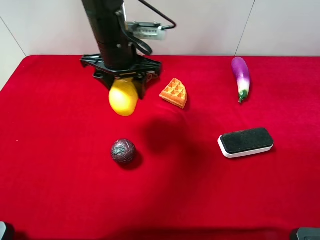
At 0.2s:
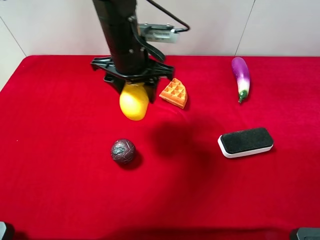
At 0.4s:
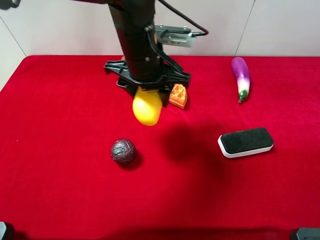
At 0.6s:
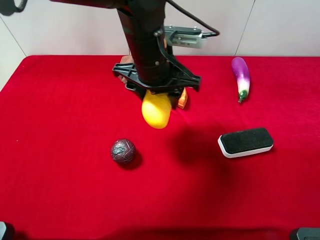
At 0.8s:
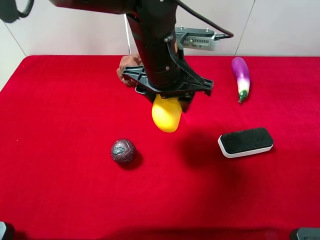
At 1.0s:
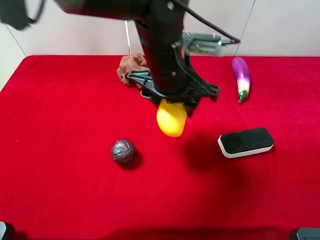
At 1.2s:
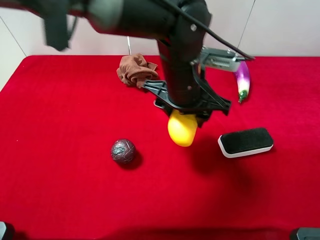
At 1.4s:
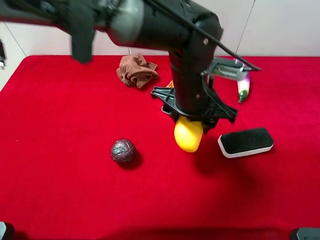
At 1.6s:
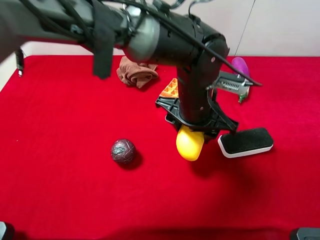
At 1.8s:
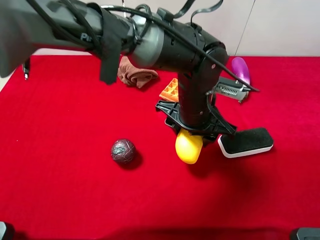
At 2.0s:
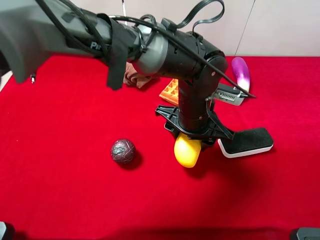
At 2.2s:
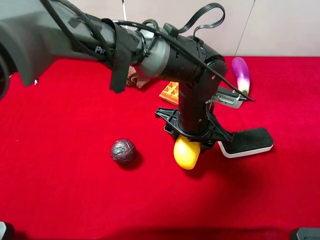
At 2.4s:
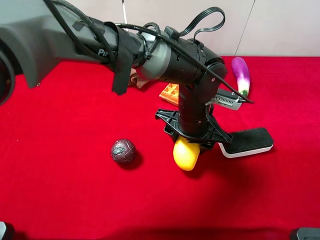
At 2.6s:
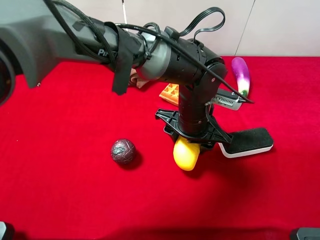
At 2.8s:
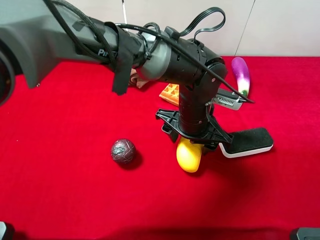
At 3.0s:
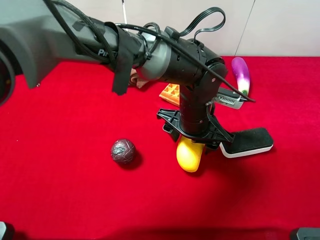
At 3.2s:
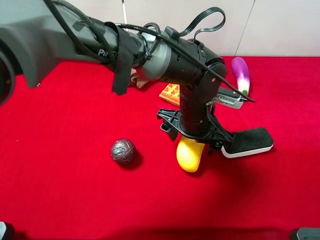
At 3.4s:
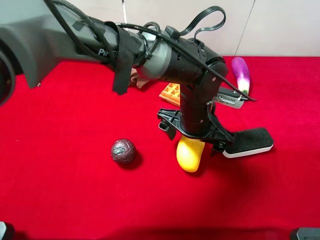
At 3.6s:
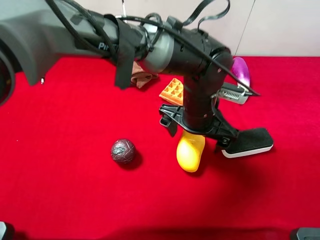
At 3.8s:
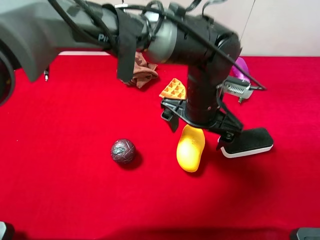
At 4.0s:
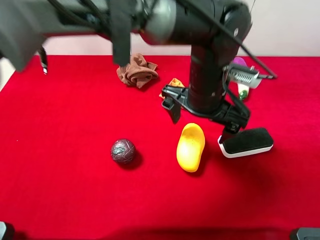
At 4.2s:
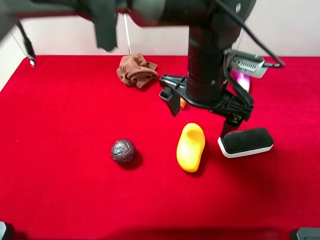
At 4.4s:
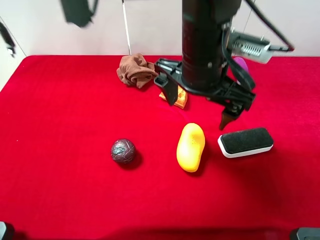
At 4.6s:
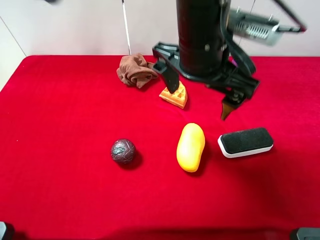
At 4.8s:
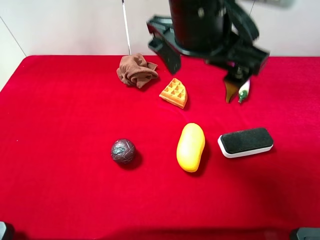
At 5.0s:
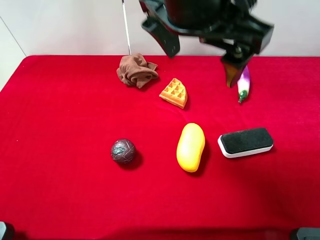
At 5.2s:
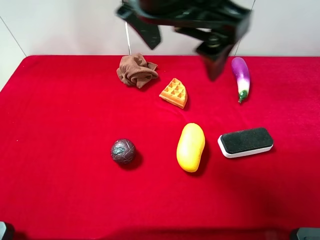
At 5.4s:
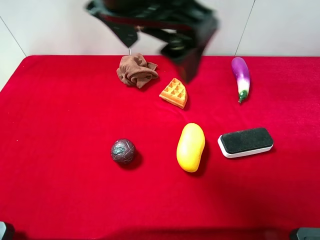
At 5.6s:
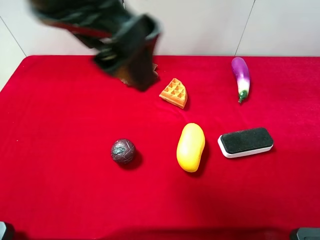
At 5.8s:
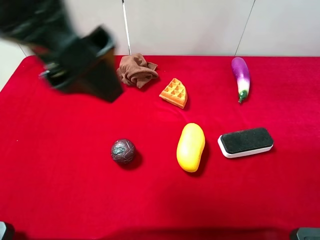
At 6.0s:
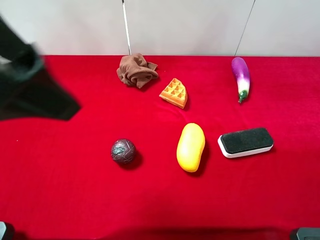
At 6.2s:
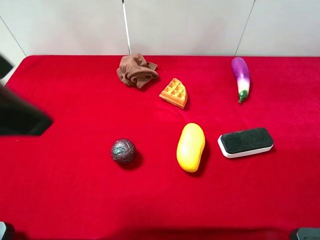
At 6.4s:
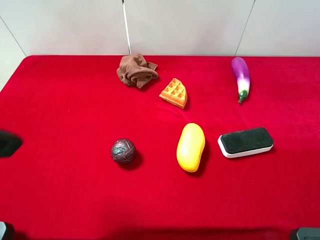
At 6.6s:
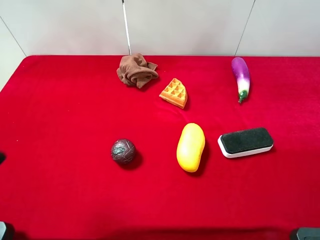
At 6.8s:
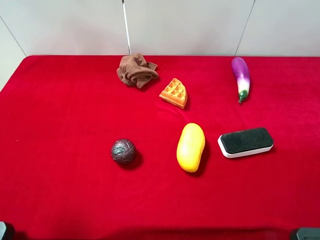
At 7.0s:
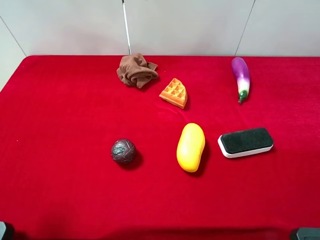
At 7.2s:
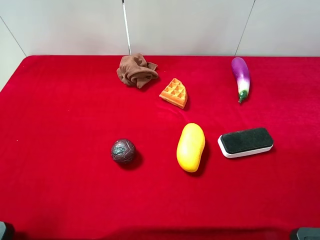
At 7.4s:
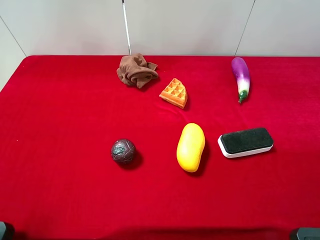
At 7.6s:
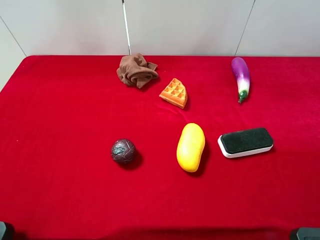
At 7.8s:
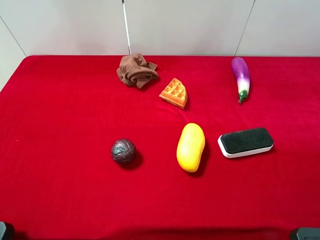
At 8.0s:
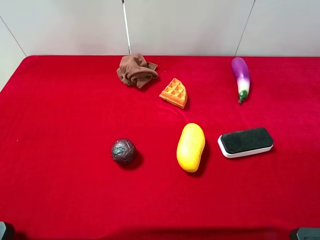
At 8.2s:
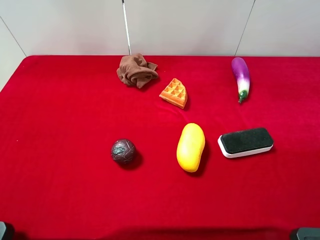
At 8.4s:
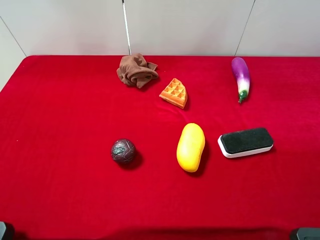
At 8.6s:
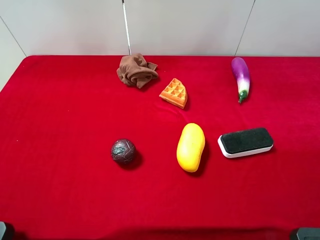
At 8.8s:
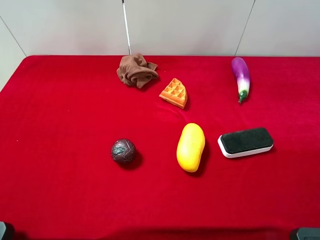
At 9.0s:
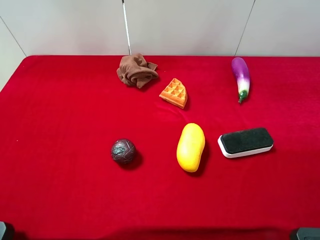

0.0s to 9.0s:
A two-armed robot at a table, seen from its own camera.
Task of the whole recording: the gripper move the object.
Step, 0.0s to 4.0s: Place the mango on the table with the left gripper.
0.0s to 1.6s: The left gripper goes roughly 15 cm to the right, backward and downward.
3.0s to 4.4s: The left gripper goes some 15 cm upward, and opens its fingers.
4.4s to 6.0s: The left gripper moves to the left, upward and backward, about 30 cm.
6.0s to 7.6s: The left gripper goes approximately 20 cm to the left, downward and backward.
